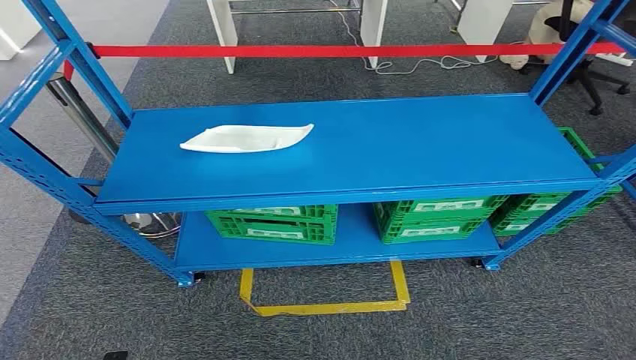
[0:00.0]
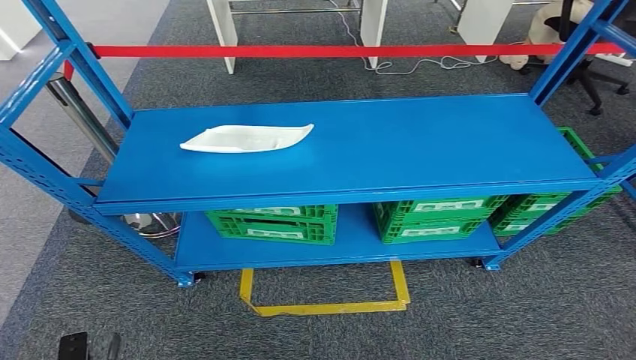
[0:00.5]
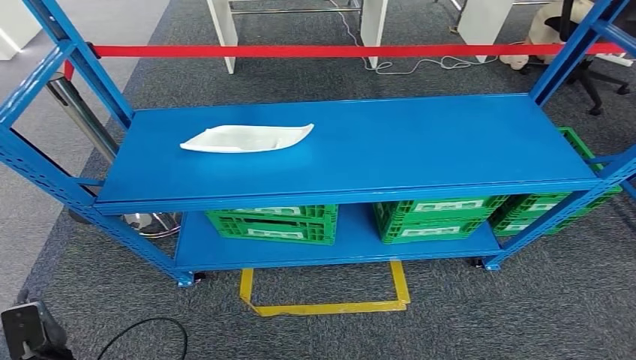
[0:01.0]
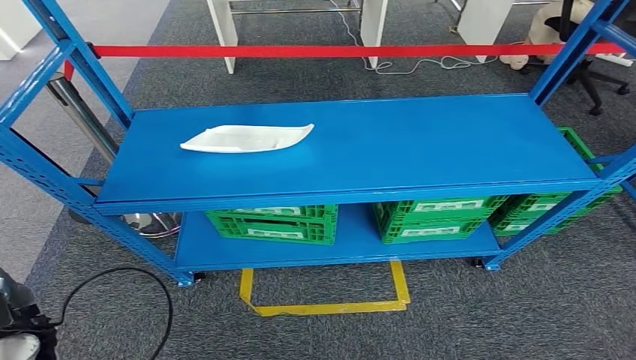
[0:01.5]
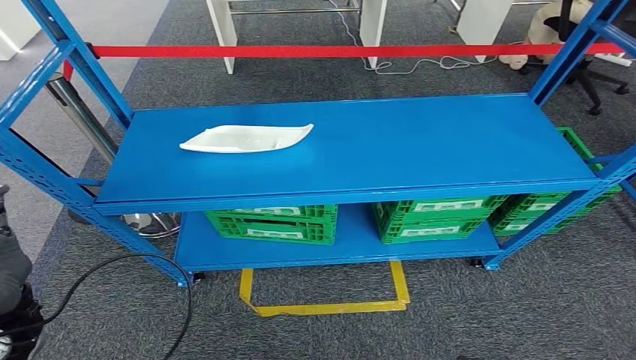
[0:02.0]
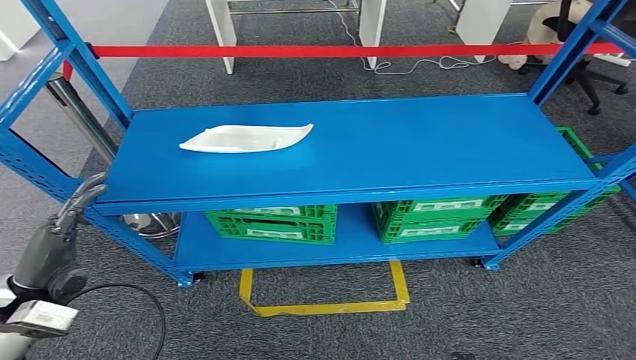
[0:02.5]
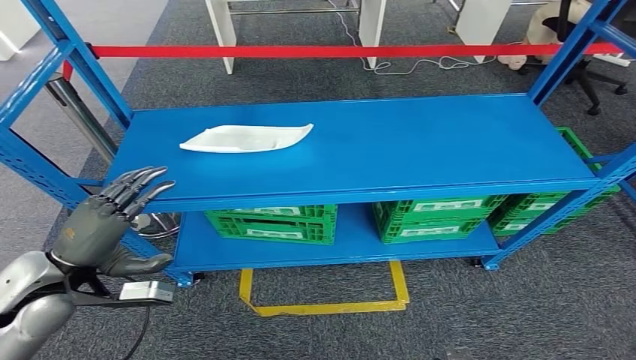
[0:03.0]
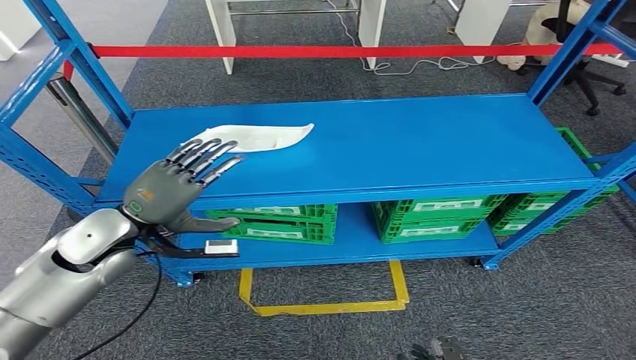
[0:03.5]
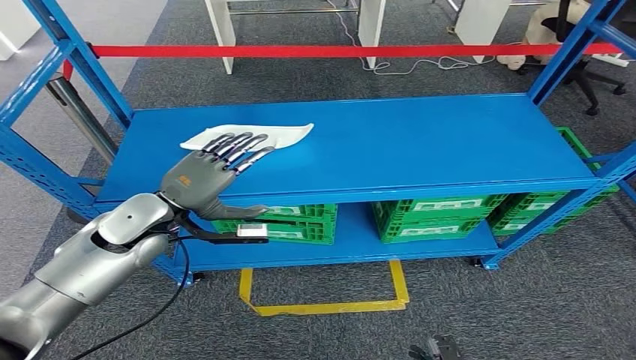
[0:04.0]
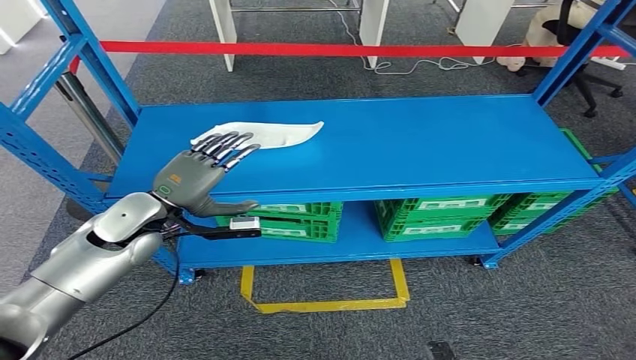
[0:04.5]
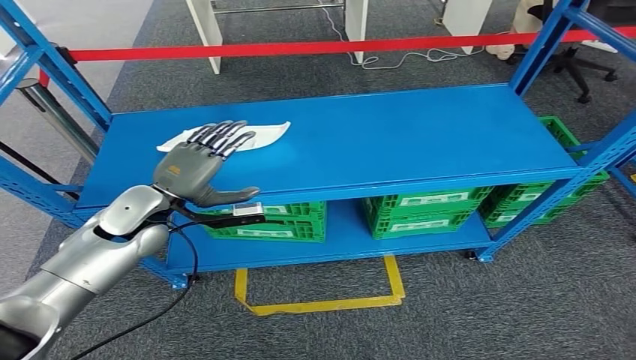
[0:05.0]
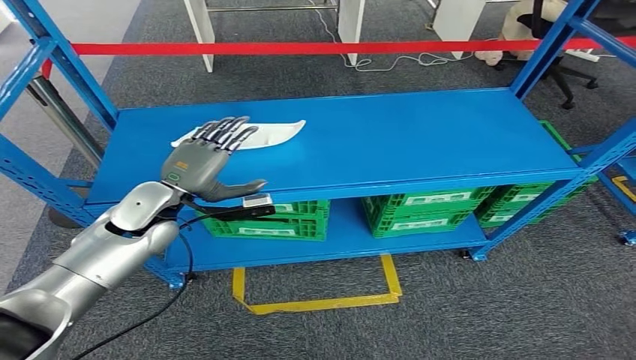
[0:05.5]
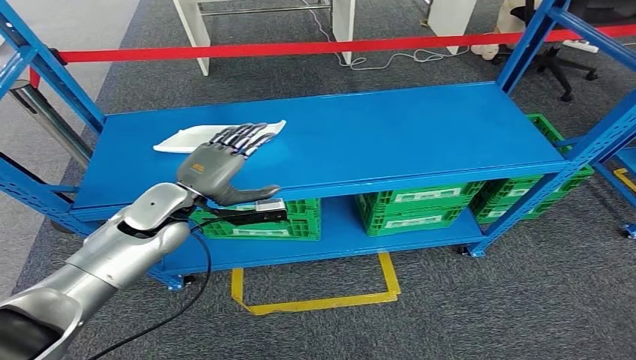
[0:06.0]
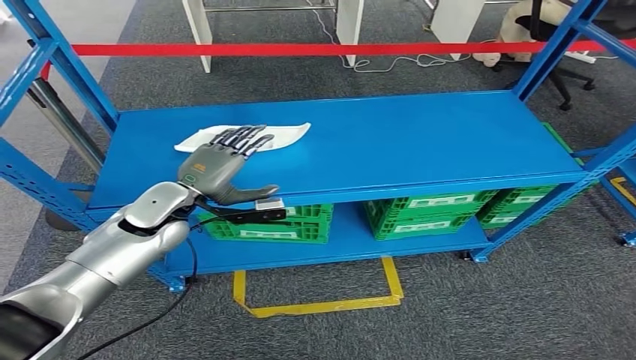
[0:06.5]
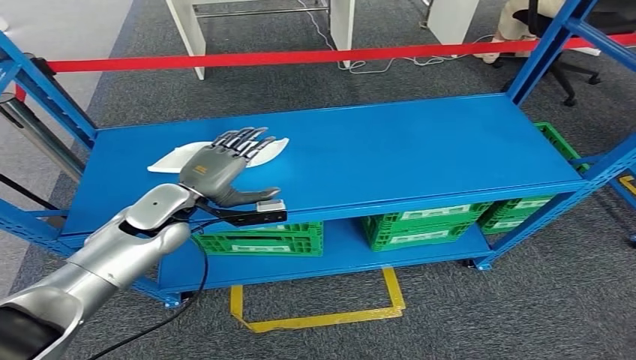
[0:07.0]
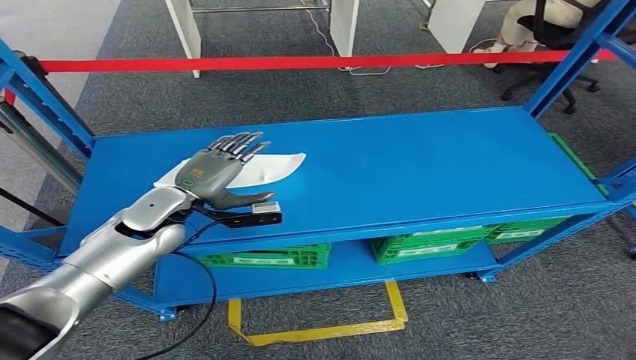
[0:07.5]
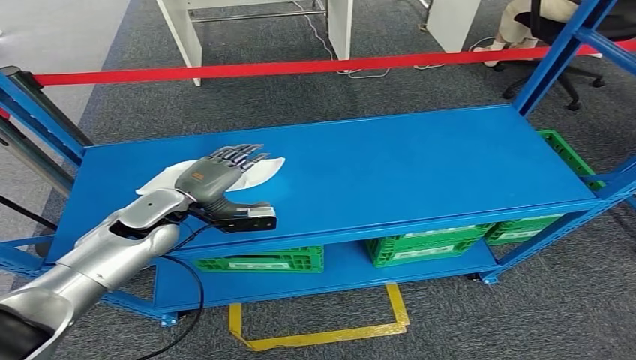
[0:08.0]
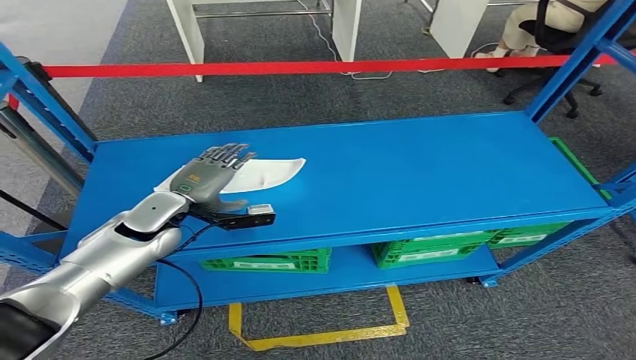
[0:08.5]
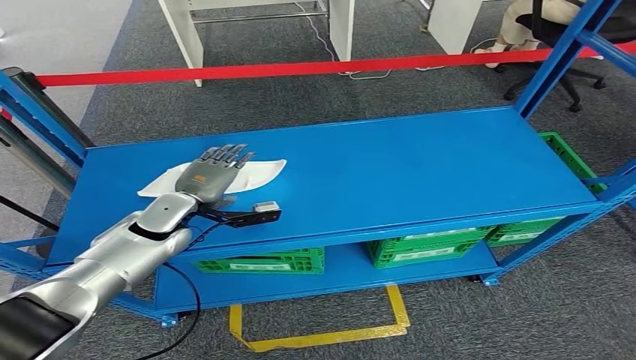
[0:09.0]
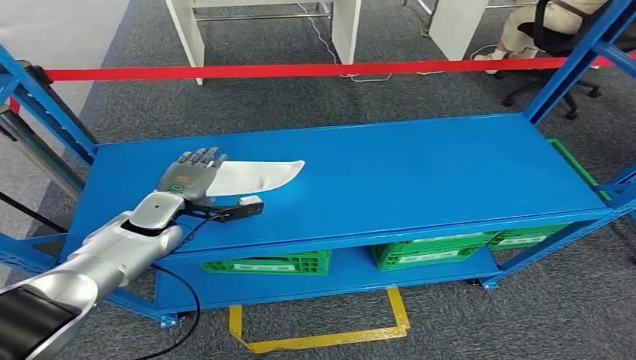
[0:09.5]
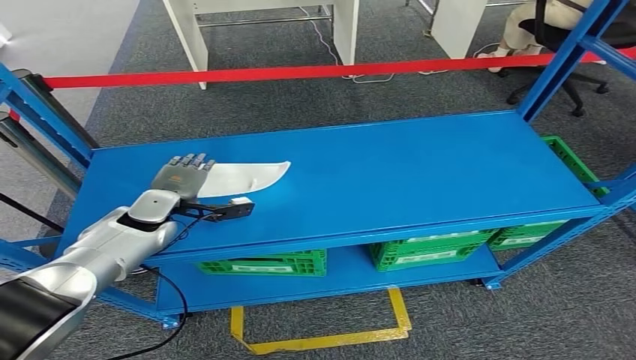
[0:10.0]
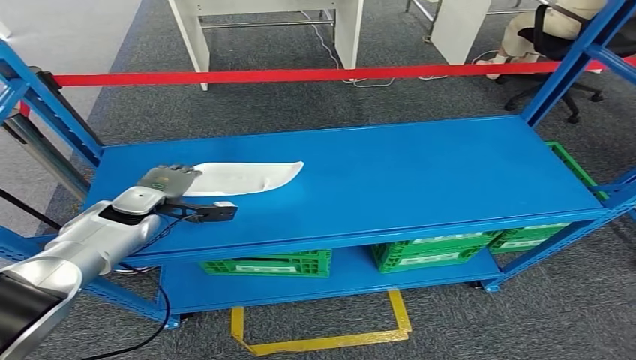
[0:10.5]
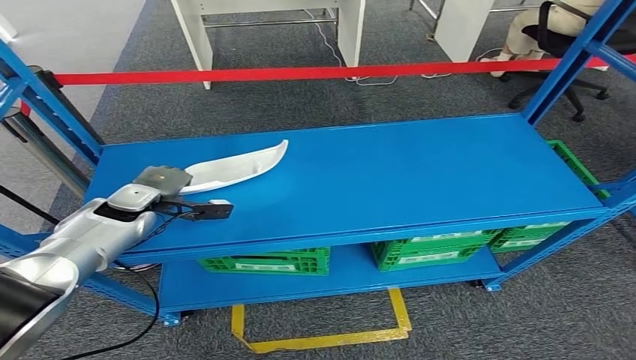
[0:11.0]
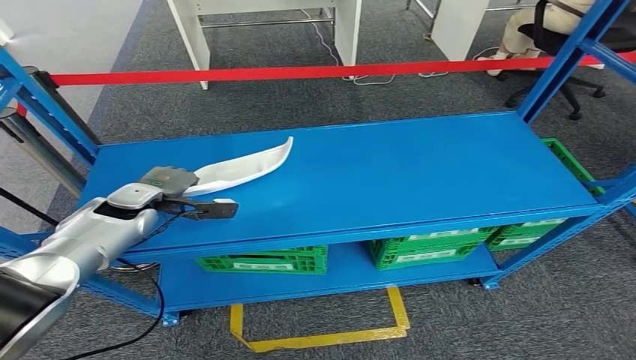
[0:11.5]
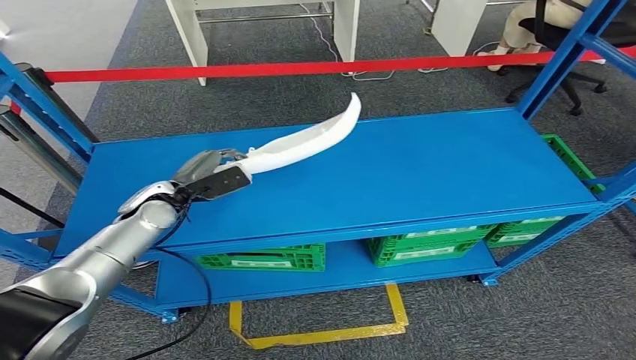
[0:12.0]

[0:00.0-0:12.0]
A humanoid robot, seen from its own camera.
0:02.0 to 0:04.0: The left hand shifts roughly 20 cm forward and to the right.

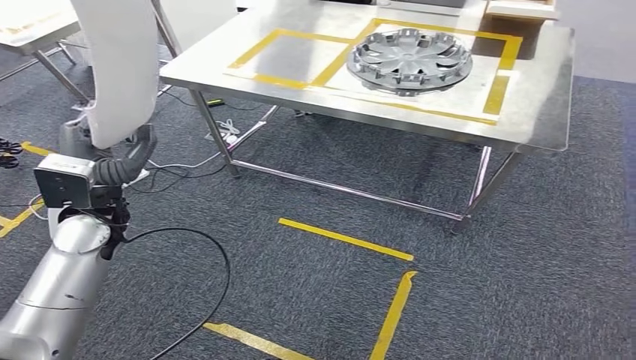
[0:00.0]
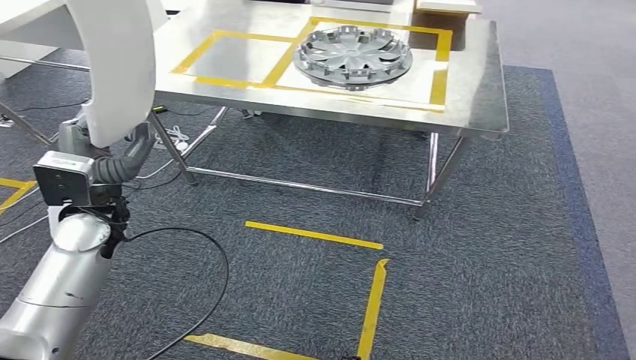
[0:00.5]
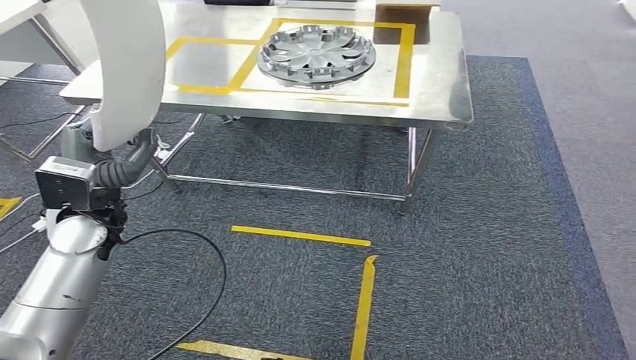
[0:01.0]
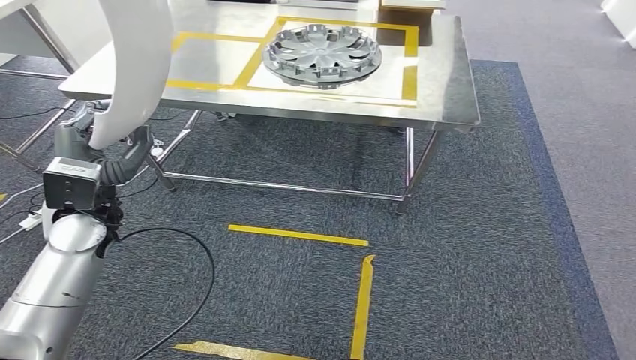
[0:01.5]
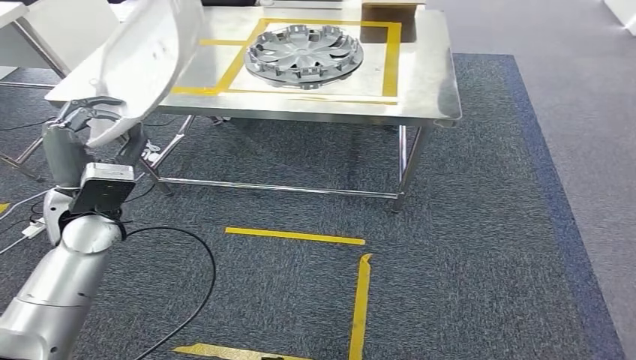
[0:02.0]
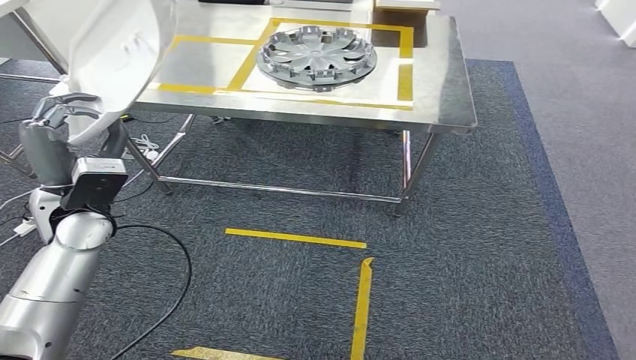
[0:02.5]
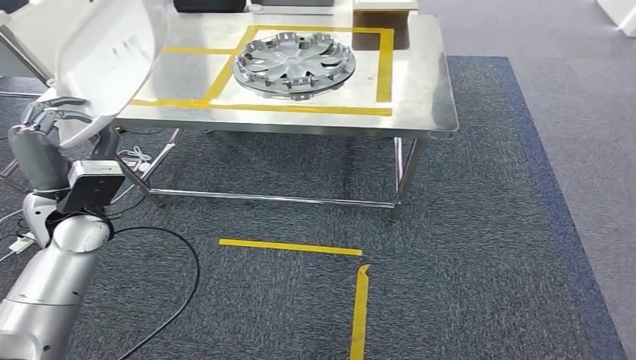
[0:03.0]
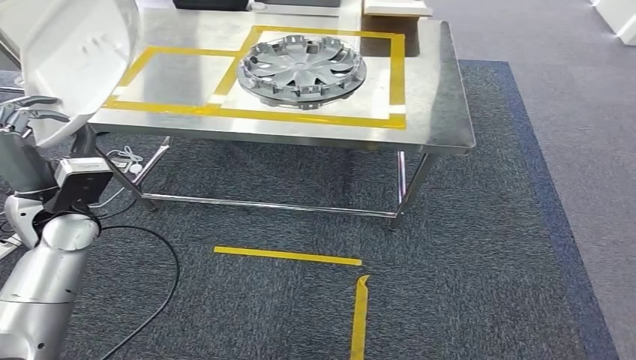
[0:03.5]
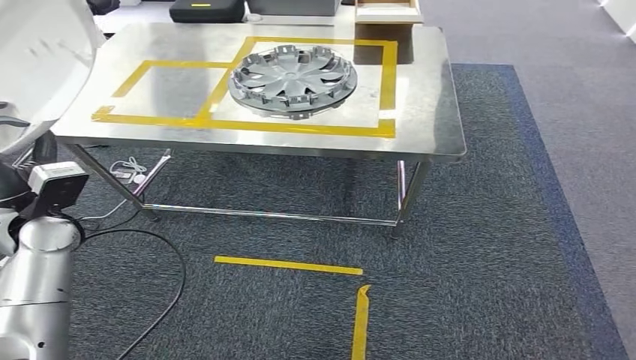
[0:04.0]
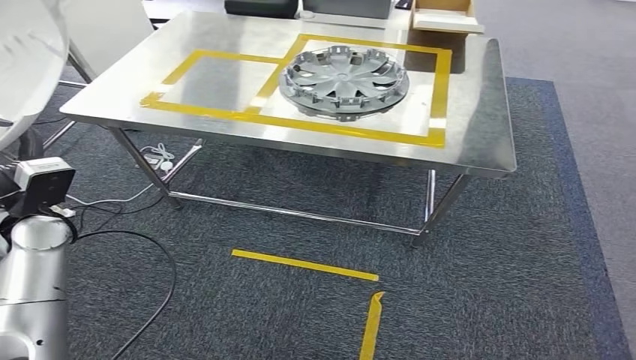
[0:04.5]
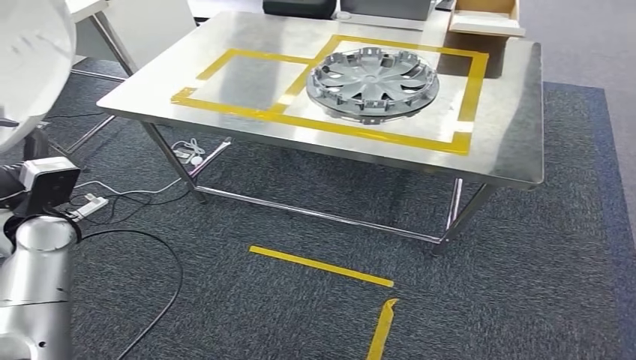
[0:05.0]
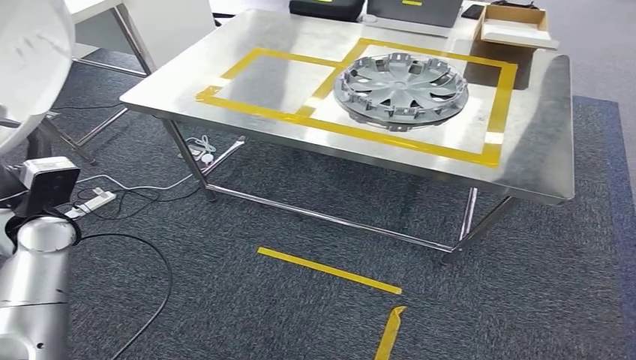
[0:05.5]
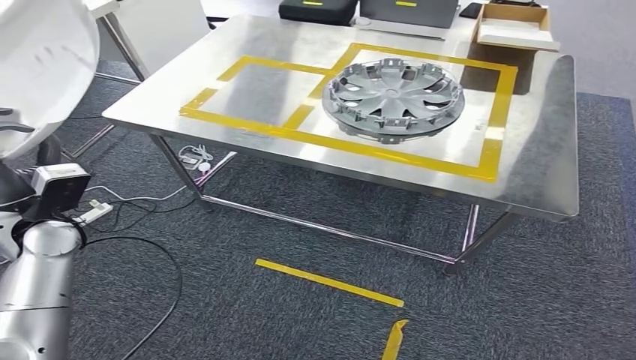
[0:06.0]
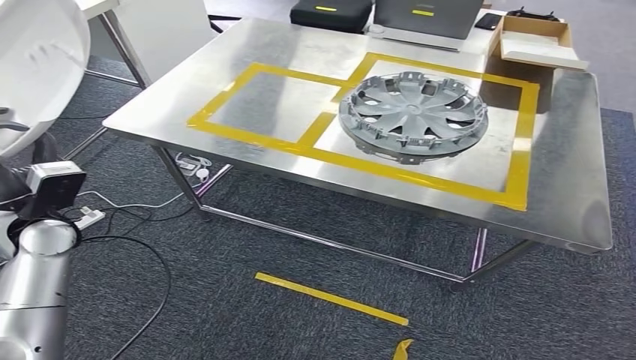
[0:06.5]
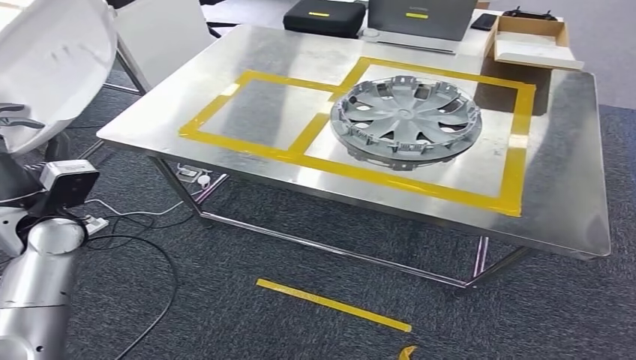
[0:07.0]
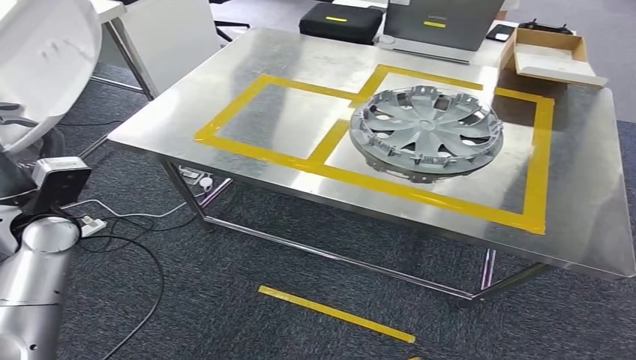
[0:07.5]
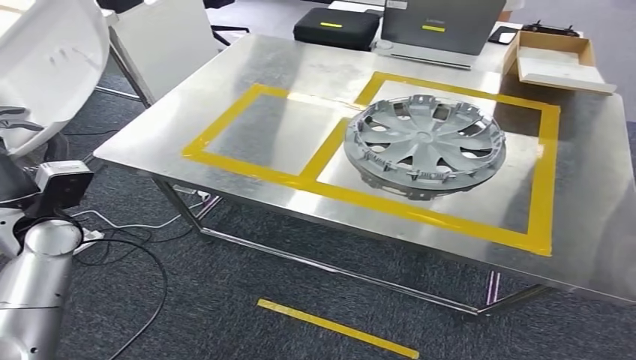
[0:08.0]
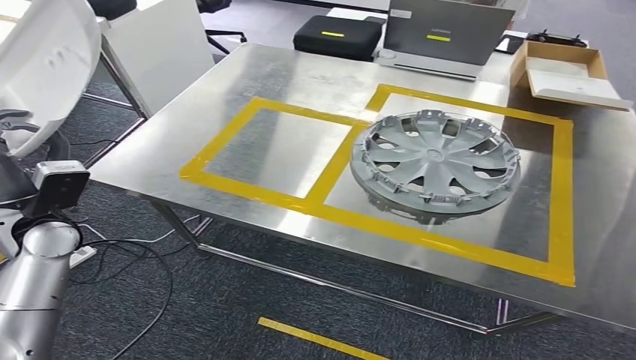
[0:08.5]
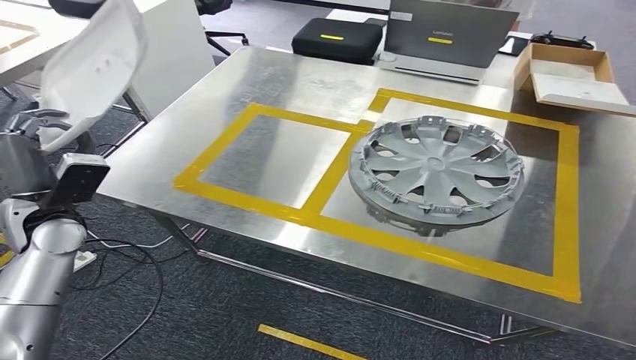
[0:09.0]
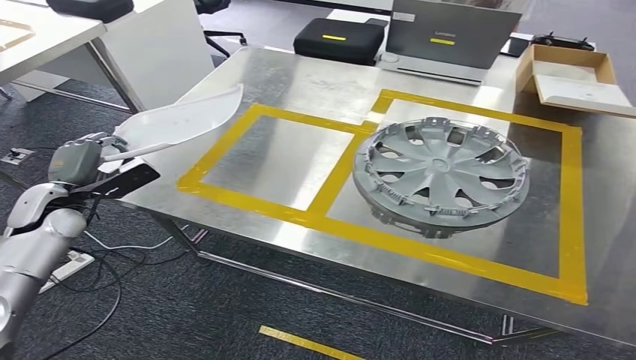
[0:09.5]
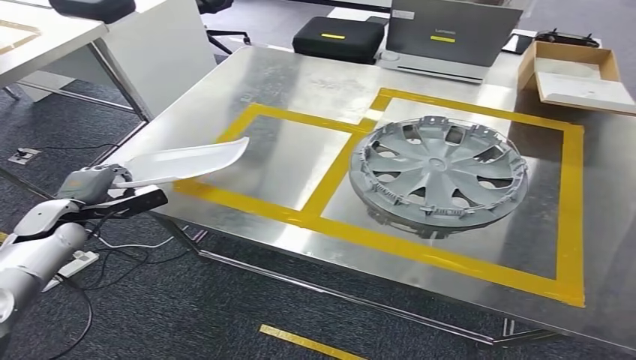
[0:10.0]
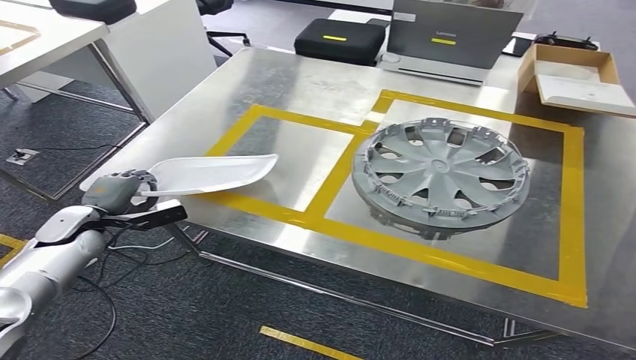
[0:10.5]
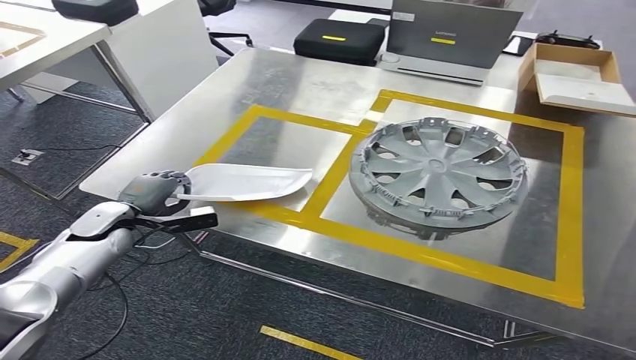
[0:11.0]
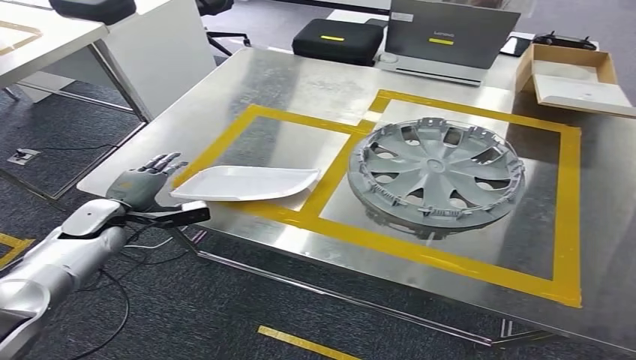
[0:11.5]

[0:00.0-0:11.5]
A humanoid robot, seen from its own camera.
Step, 0:00.0 to 0:02.0: Move the small component to the workbench.
